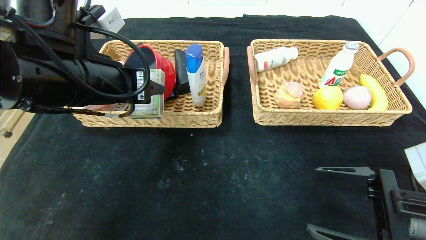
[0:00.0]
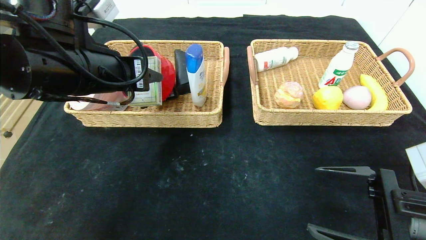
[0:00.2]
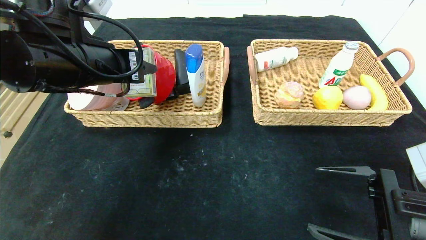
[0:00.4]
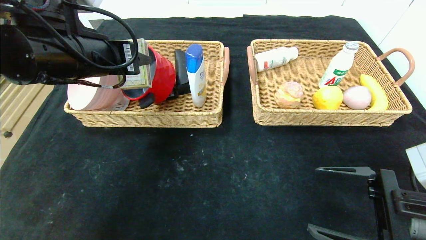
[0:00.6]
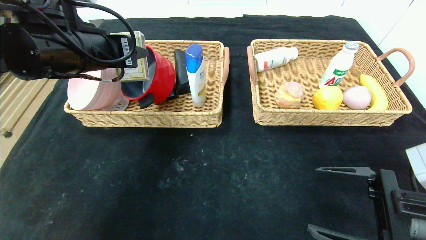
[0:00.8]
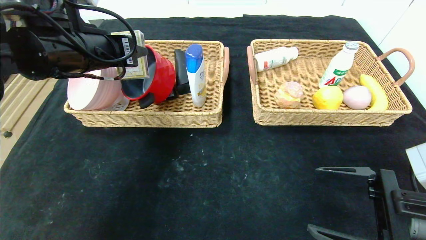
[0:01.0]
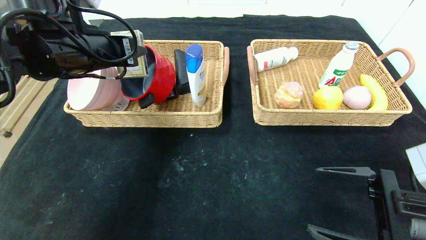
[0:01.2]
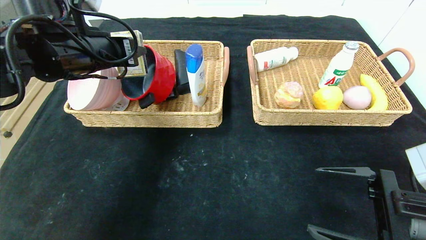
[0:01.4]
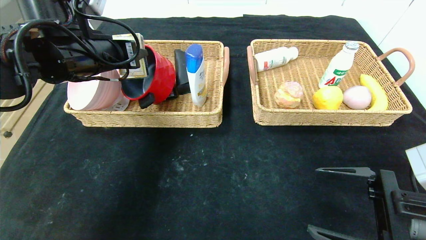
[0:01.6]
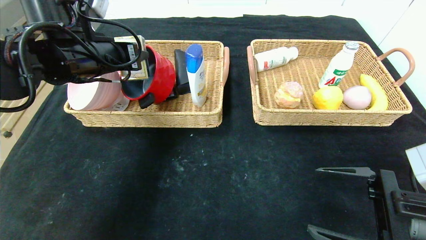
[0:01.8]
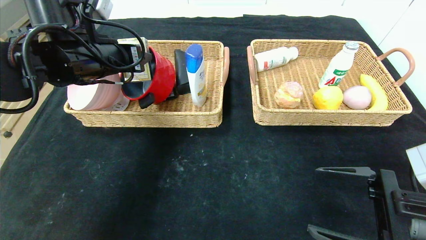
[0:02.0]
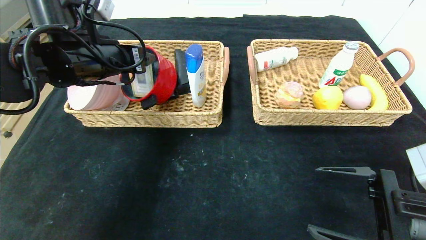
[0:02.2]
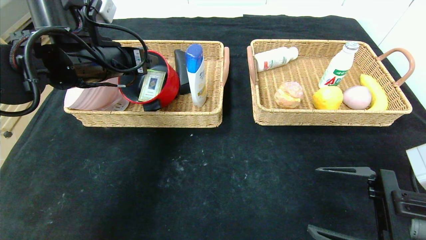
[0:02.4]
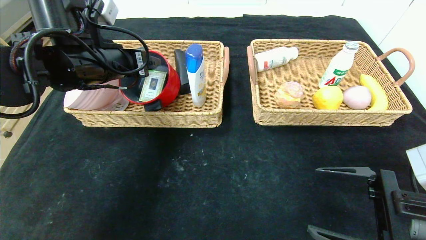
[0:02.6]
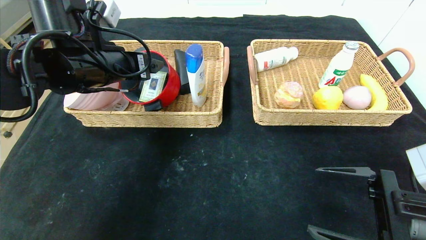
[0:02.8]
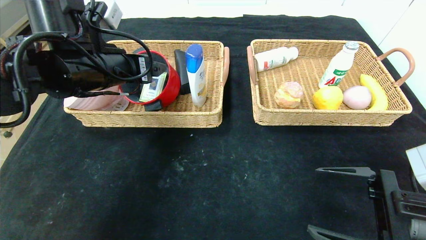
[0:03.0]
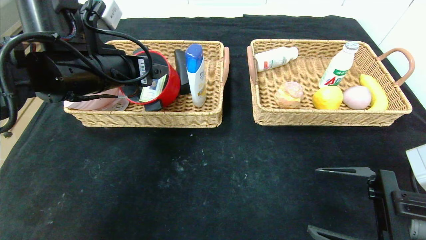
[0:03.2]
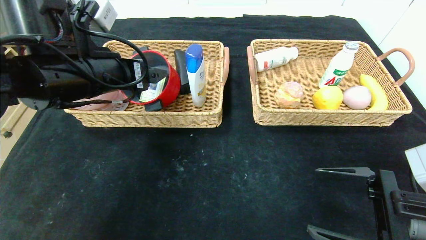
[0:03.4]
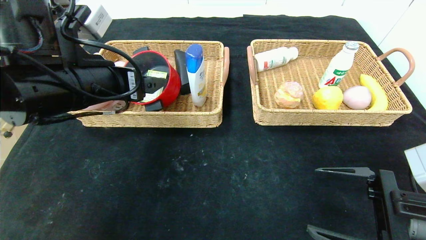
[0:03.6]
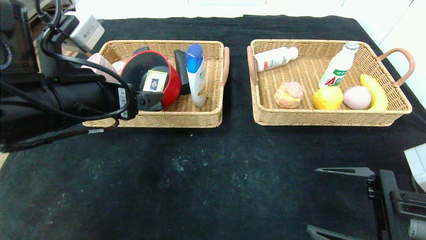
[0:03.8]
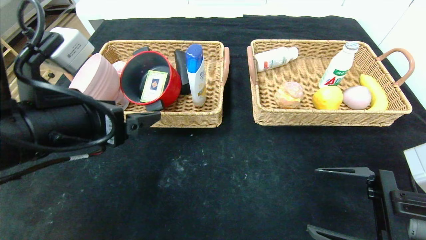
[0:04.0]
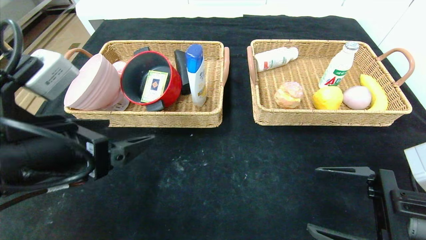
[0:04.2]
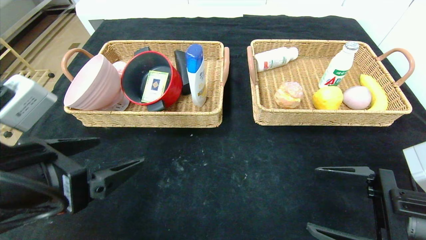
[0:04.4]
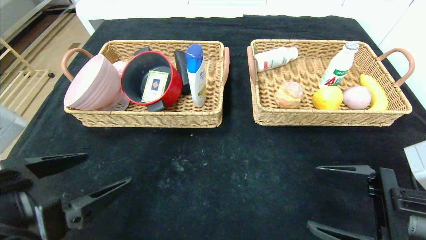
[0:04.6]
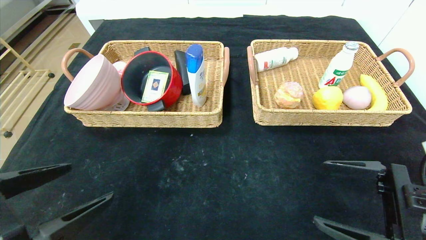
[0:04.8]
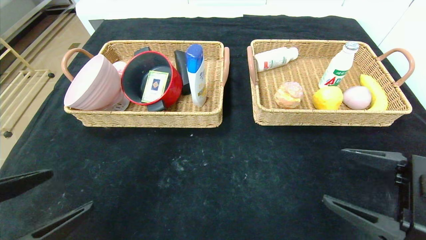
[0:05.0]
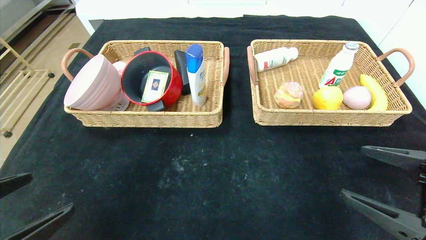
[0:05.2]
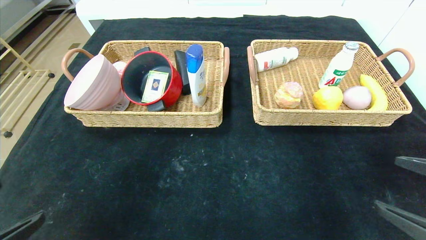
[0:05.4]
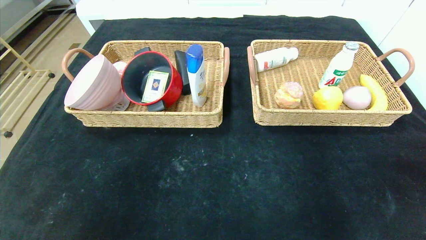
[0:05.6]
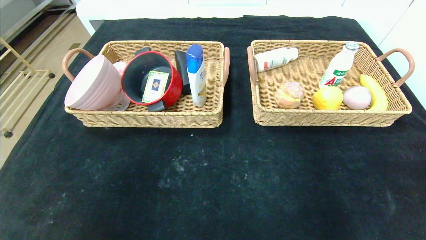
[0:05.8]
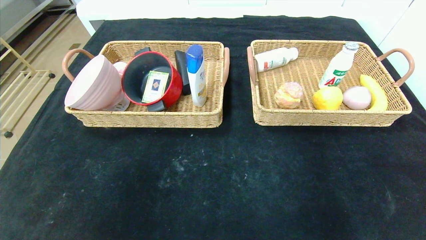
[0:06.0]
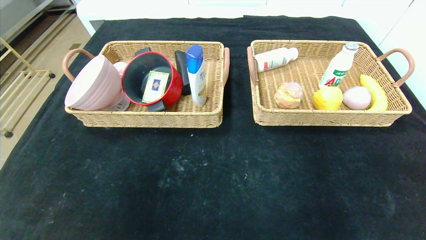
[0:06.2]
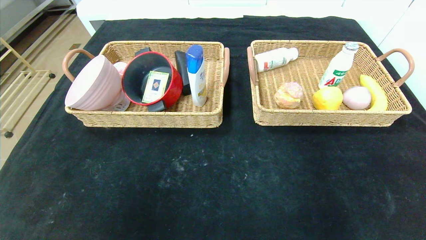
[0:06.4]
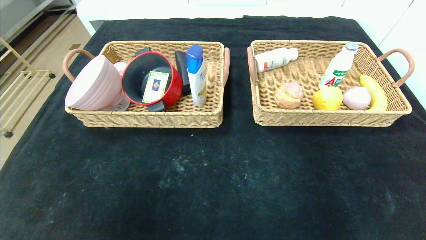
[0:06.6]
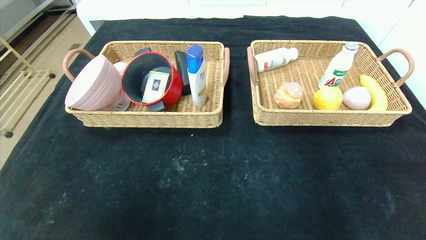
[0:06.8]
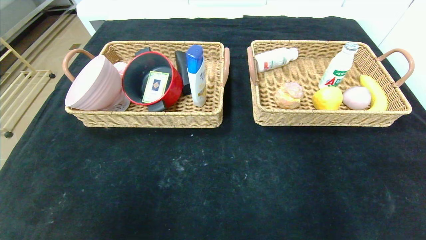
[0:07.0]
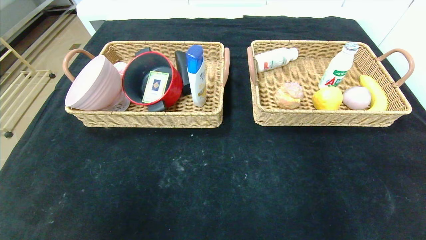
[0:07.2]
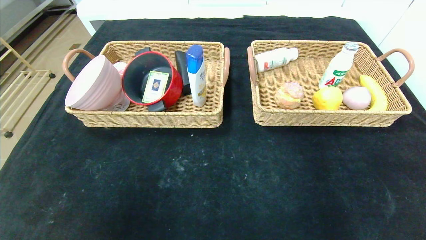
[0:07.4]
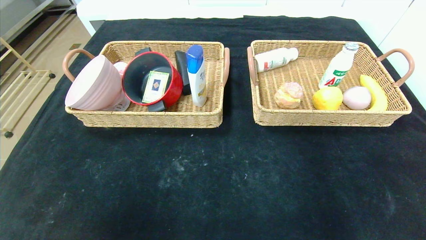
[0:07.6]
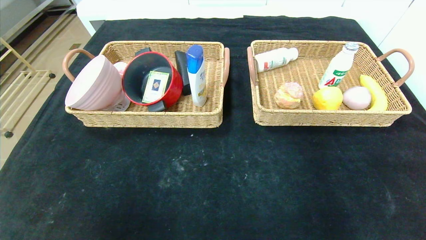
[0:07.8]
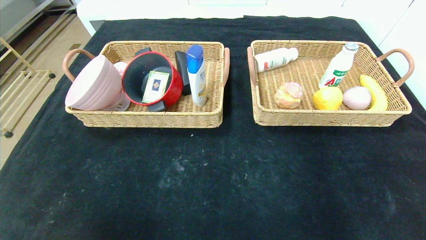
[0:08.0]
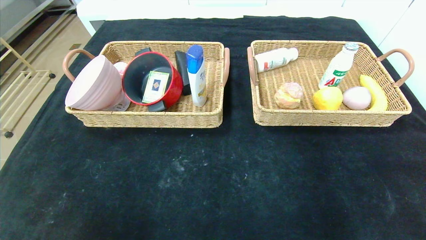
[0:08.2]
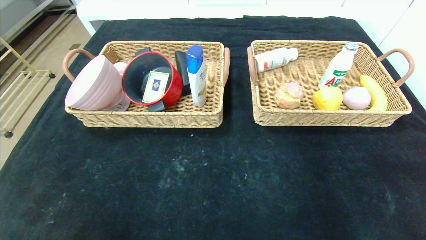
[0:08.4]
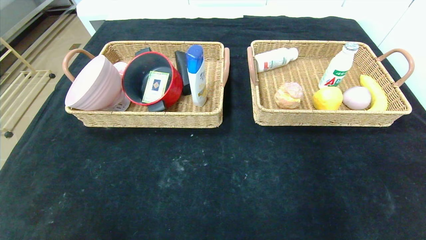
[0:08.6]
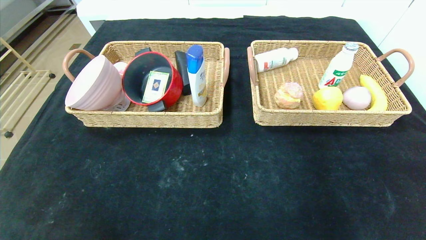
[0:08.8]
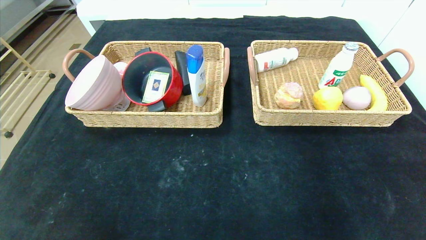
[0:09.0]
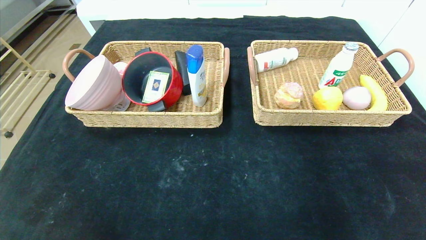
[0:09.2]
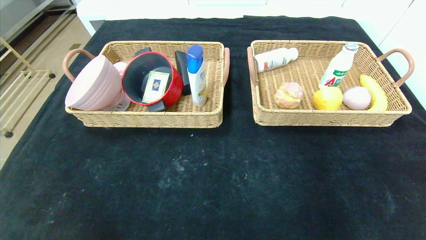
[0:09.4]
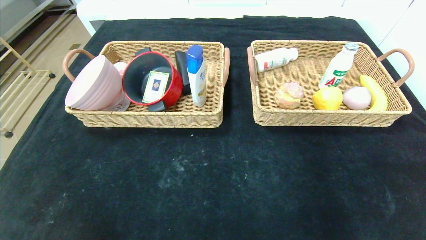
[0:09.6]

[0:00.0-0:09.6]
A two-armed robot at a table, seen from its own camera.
Step, 0:00.0 to 0:03.6: Grasp the playing cards and put it in the left basket.
0:00.0 to 0:01.6: The left gripper is displaced forward by about 10 cm.
0:01.6 to 0:03.2: The left gripper opens.
0:03.2 to 0:04.8: The left gripper shifts approximately 20 cm backward.
0:04.8 to 0:06.4: The right gripper is displaced backward and to the right by about 25 cm. Meanwhile the left gripper goes some 15 cm backward.

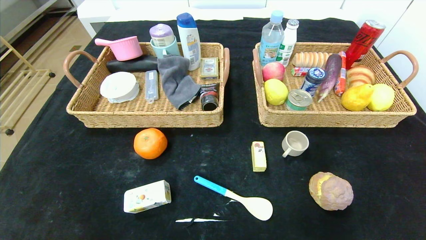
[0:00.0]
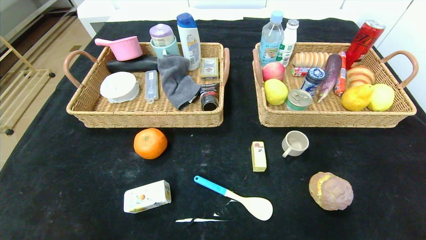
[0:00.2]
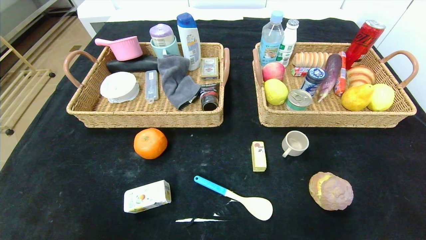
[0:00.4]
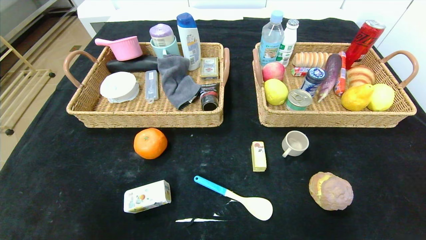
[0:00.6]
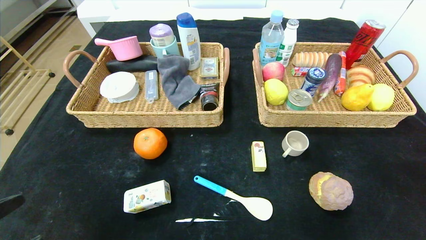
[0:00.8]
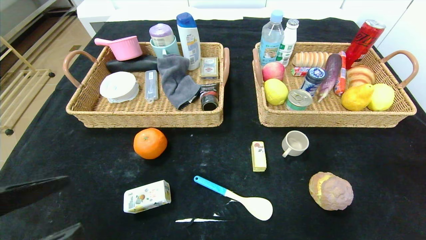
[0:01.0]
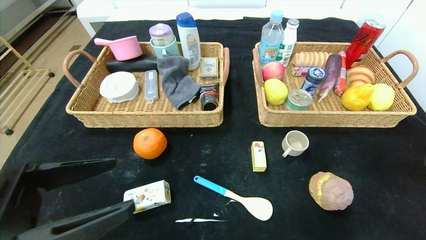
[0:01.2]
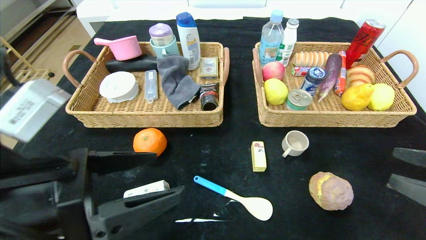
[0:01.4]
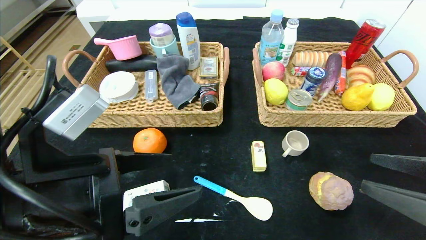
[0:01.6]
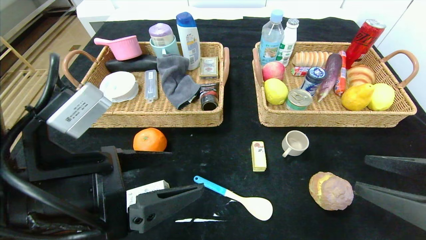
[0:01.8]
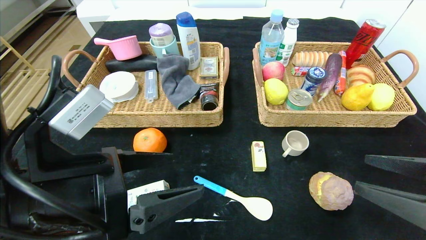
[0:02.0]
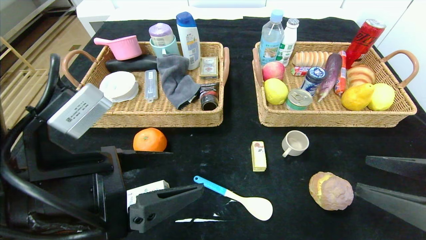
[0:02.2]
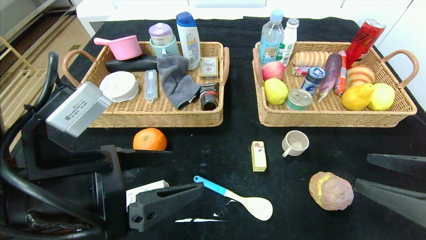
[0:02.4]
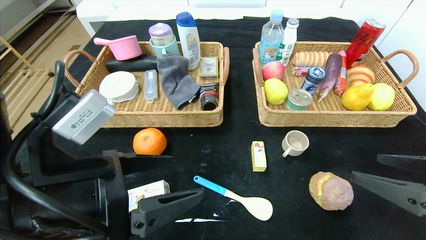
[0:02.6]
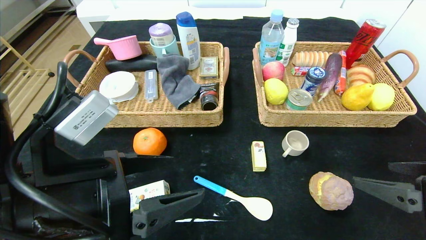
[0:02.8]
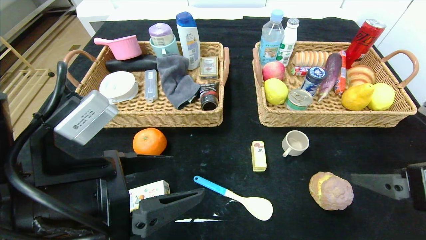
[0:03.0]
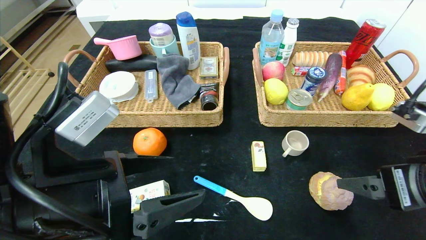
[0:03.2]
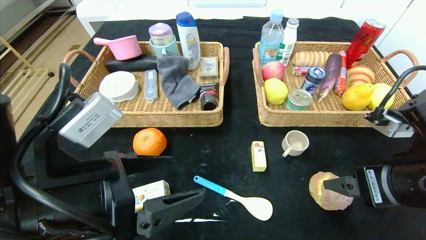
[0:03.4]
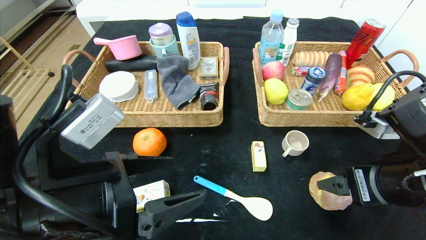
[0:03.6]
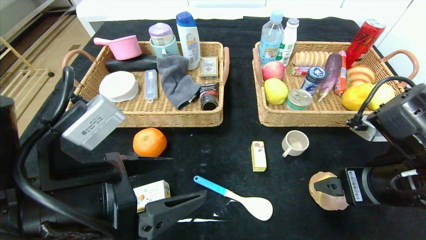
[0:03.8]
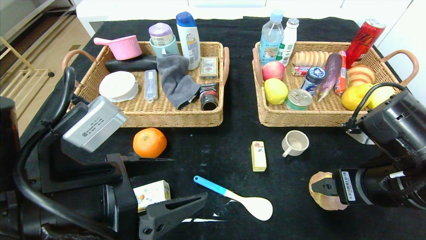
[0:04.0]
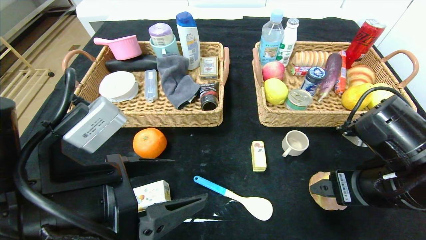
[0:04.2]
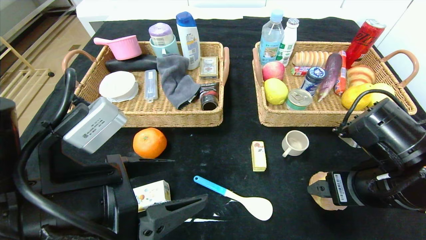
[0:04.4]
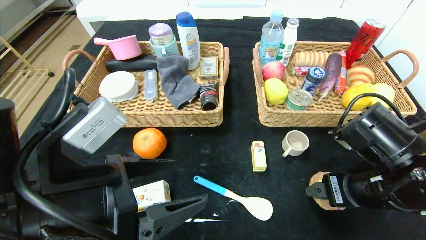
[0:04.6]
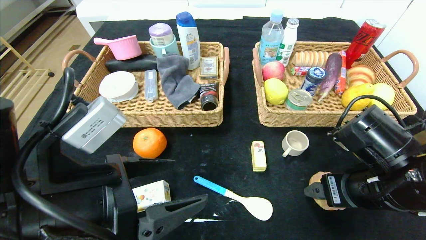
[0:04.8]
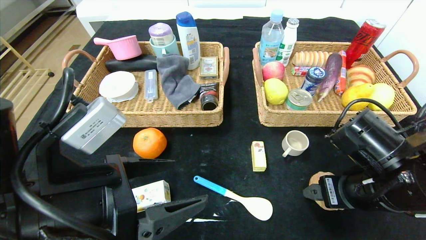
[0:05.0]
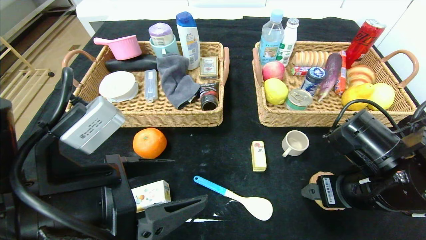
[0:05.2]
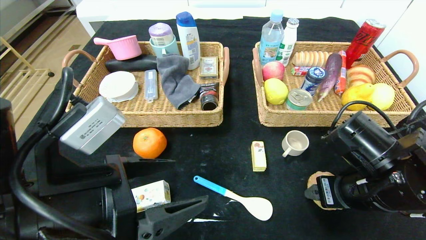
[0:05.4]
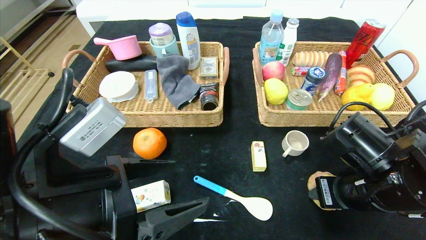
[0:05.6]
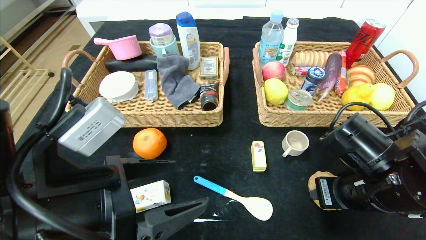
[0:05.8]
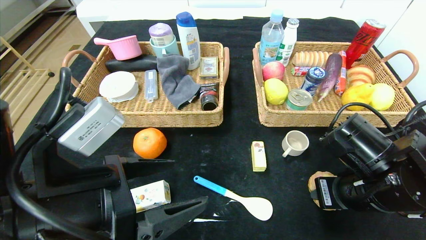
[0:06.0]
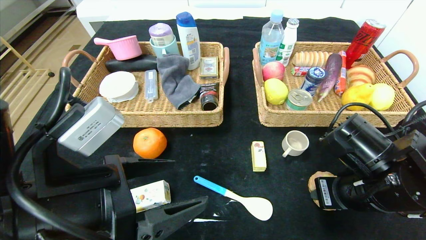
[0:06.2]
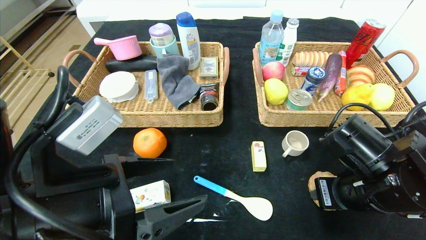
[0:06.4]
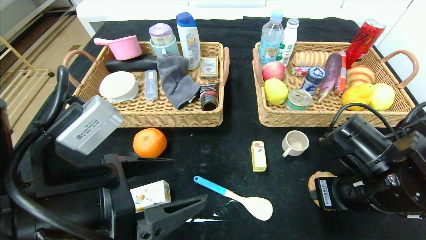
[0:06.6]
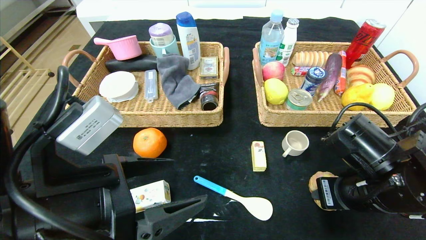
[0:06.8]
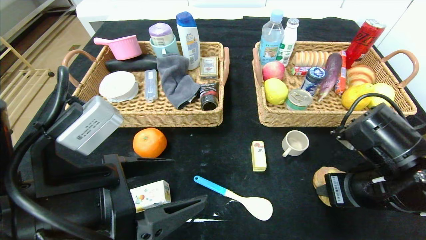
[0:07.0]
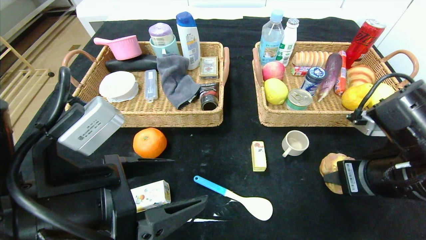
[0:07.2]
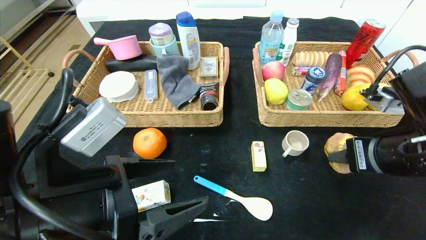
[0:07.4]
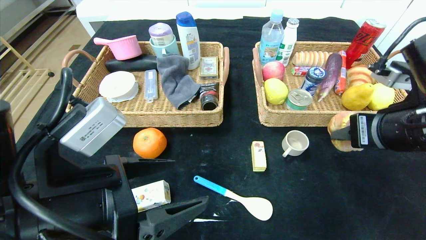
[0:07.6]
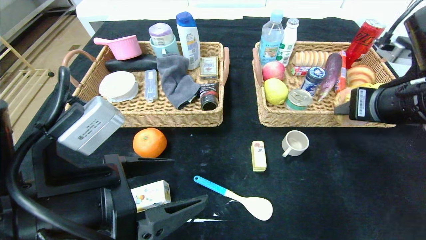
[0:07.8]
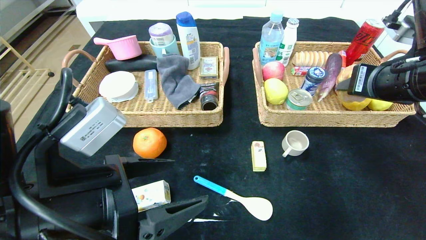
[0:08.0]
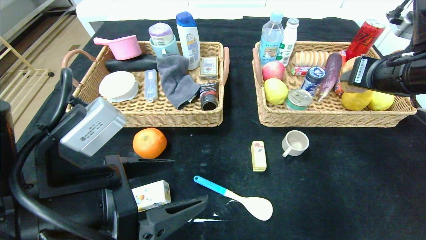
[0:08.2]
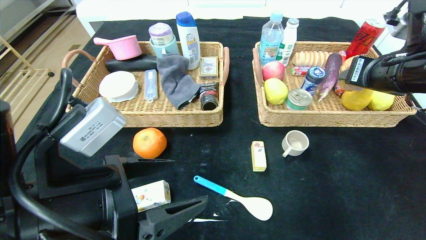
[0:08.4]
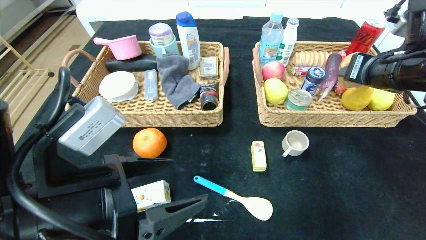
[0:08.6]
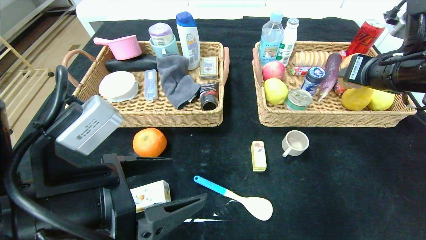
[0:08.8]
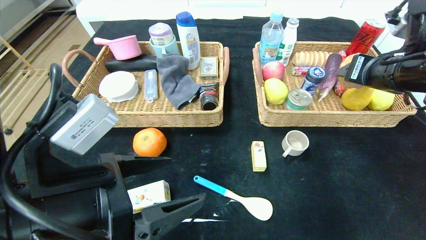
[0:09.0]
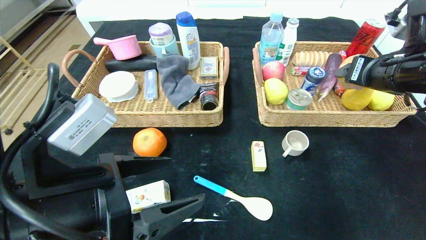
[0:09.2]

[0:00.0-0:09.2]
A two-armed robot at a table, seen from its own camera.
0:00.0 to 0:01.6: The right gripper is displaced upward and forward by approximately 20 cm, while the left gripper goes roughly 25 cm upward, forward and to the right.
0:03.0 to 0:04.6: The right gripper travels forward, to the left and downward by approximately 10 cm.
0:04.6 to 0:06.2: The right gripper closes.
0:06.2 to 0:07.6: The right gripper shifts some 10 cm upward.
0:07.6 to 0:09.2: The right gripper travels forward by roughly 10 cm.
